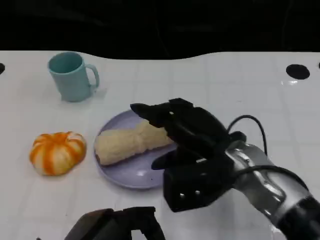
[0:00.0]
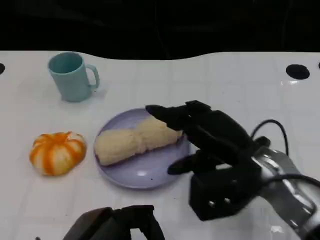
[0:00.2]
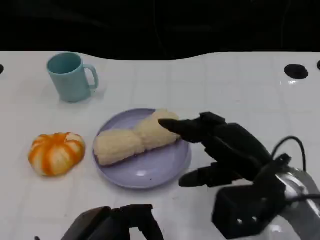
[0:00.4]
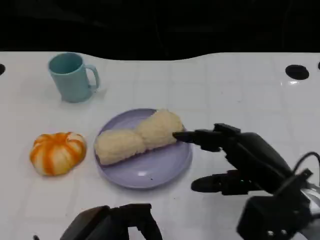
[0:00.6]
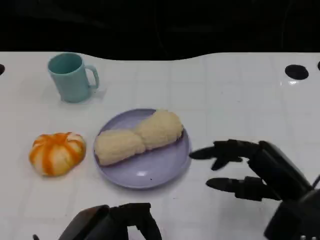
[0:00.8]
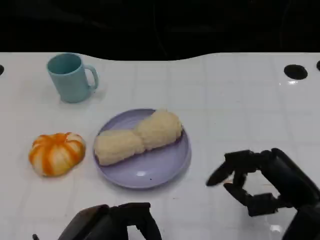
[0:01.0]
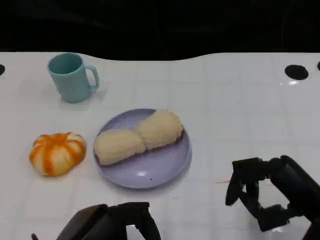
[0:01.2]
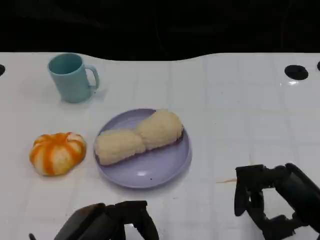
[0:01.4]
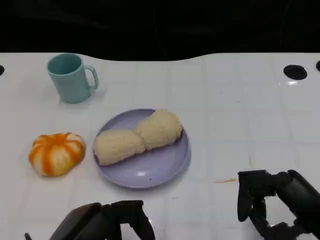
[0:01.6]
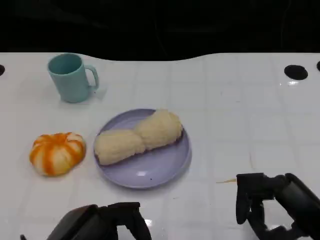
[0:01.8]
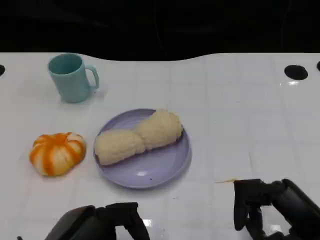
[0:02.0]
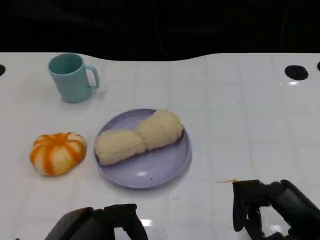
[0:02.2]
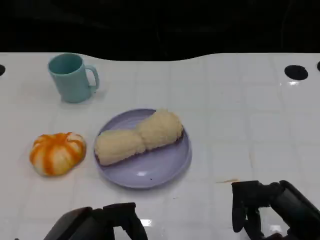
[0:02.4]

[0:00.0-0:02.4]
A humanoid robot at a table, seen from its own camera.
Task of the whole recording: Grasp the towel on the left side of the plate with the left hand and place it into the plate.
0:00.0 to 0:01.2: The right hand travels to the right and backward by about 15 cm.
0:01.2 to 0:02.4: The hands stay close to where they were, moving slightly.

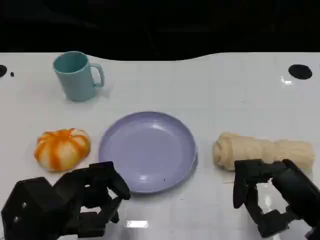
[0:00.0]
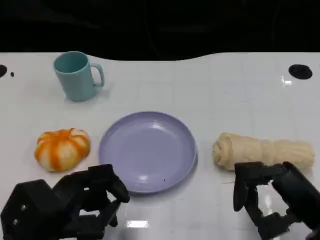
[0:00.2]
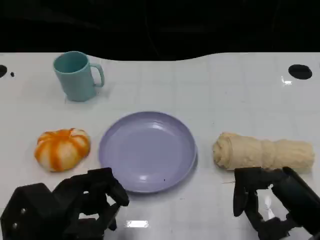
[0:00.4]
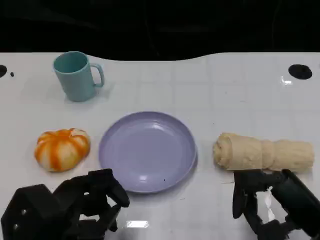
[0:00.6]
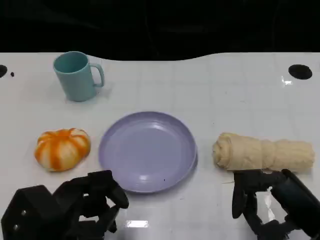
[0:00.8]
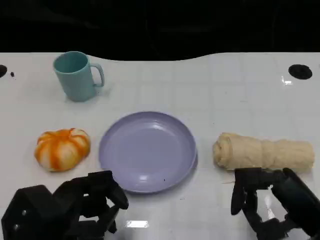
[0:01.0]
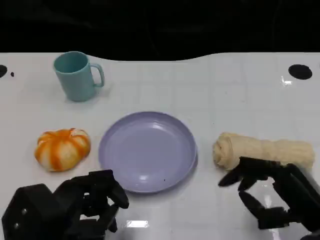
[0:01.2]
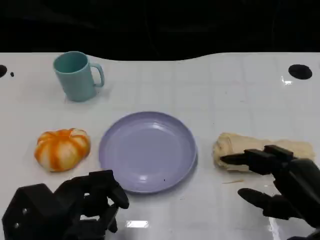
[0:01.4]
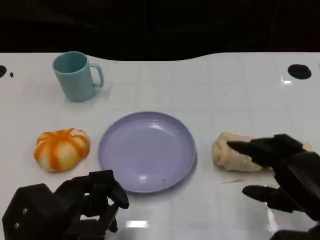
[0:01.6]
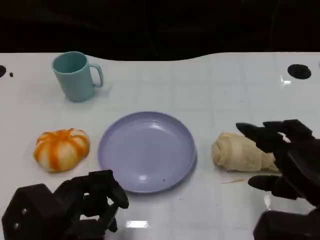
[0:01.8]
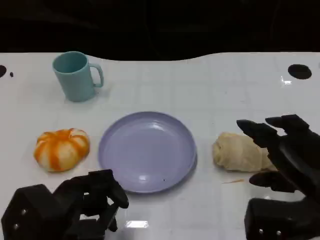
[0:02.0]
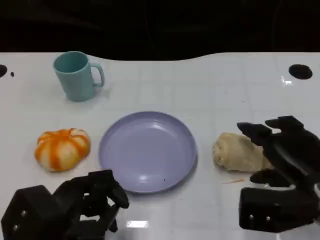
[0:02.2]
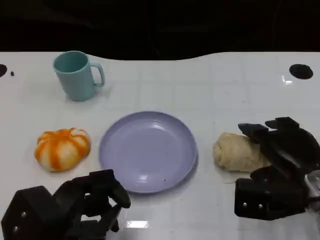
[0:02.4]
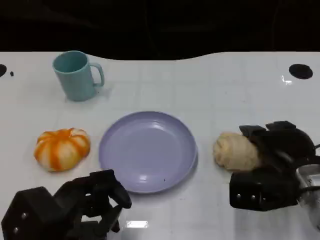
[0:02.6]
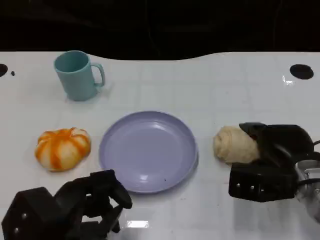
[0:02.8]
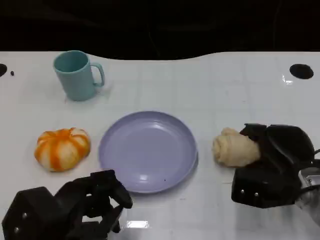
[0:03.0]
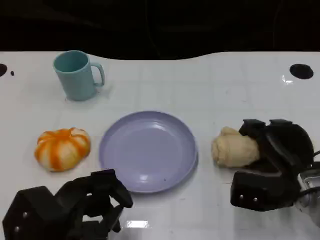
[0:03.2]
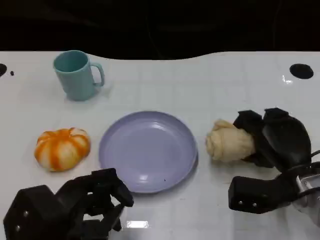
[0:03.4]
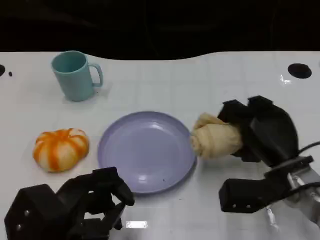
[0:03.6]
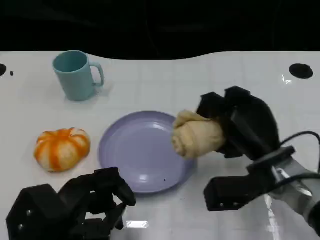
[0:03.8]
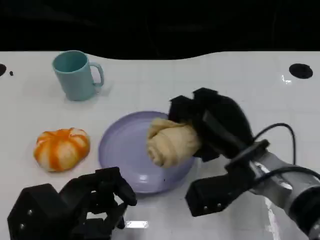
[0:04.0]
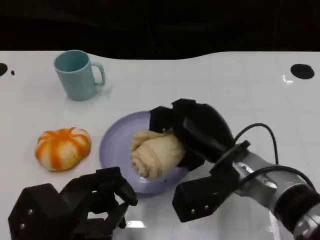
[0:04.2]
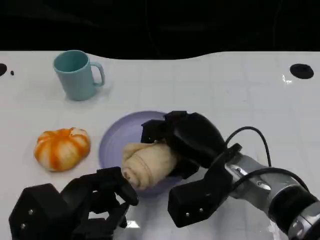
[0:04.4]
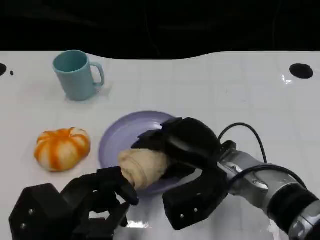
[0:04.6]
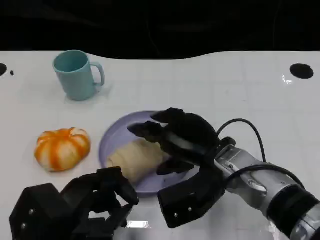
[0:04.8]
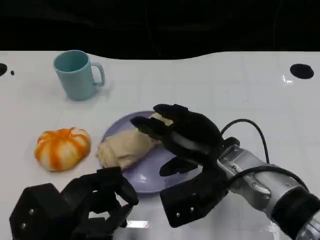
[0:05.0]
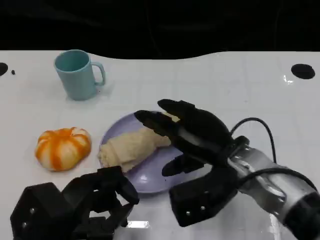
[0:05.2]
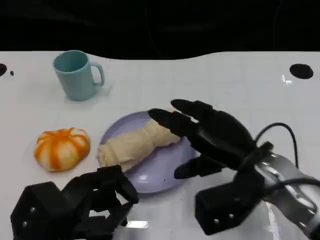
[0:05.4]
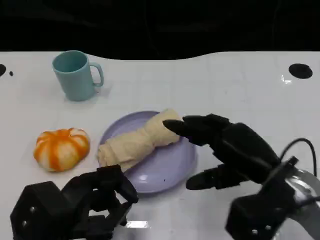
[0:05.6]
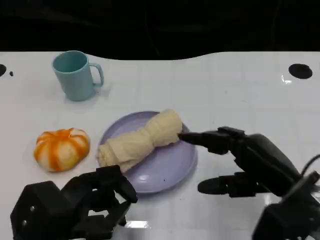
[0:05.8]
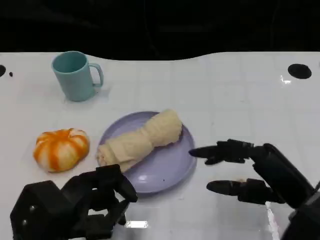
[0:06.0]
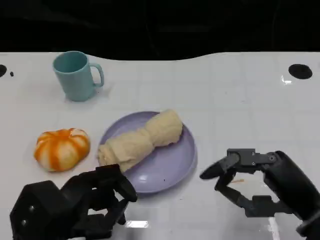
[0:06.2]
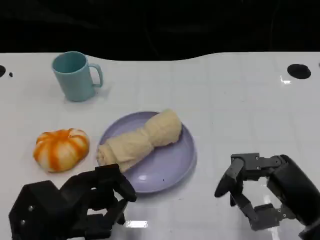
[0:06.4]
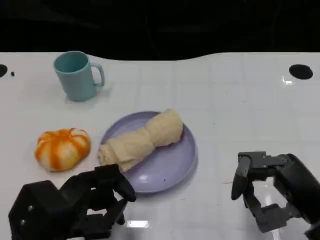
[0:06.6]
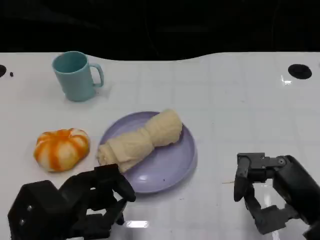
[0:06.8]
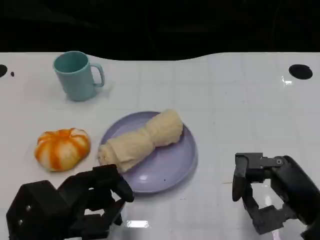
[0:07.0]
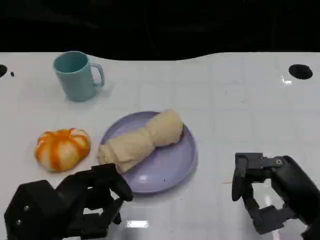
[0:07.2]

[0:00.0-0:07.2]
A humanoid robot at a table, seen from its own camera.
Task of the whole recording: Grasp the towel on the left side of the plate with the left hand and place it into the plate.
0:01.4 to 0:02.8: The right hand is displaced forward by approximately 10 cm.
0:02.8 to 0:04.4: The right hand is displaced to the left by some 10 cm.
0:04.4 to 0:05.8: The right hand moves to the right and backward, approximately 10 cm.

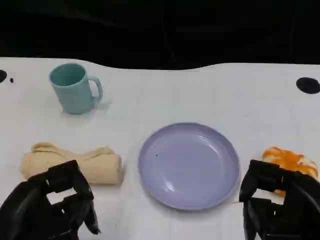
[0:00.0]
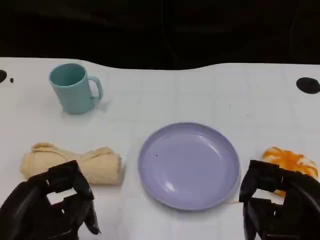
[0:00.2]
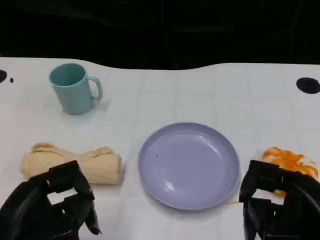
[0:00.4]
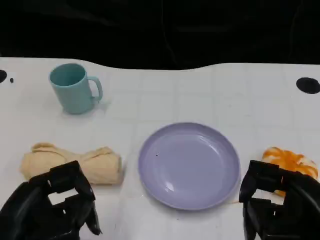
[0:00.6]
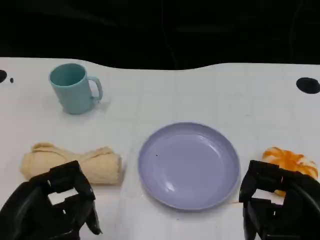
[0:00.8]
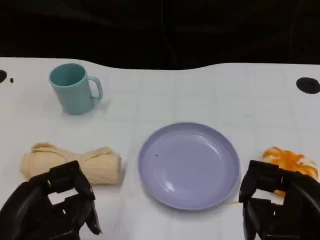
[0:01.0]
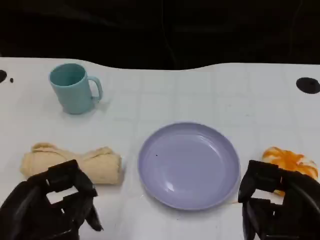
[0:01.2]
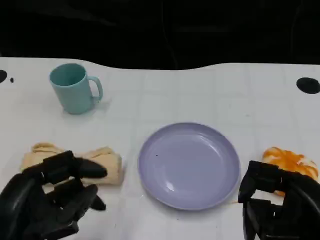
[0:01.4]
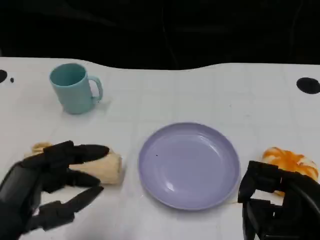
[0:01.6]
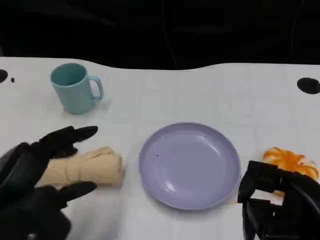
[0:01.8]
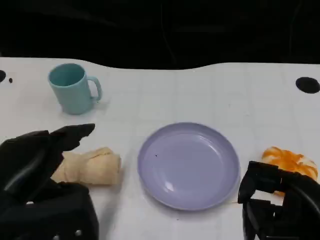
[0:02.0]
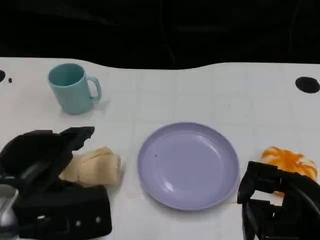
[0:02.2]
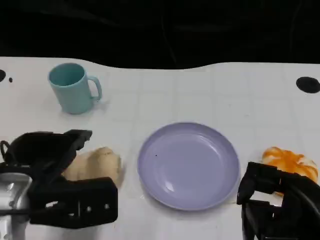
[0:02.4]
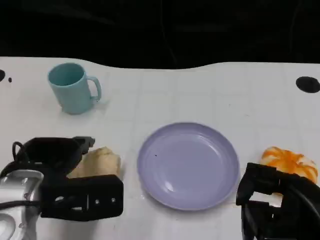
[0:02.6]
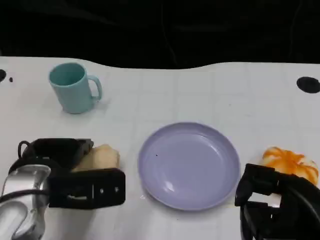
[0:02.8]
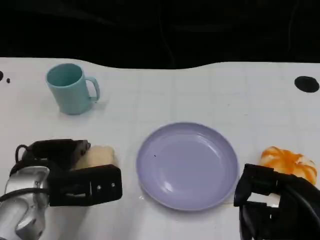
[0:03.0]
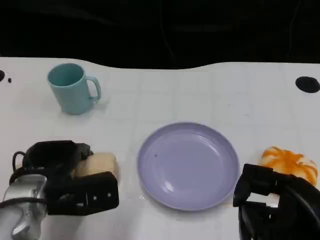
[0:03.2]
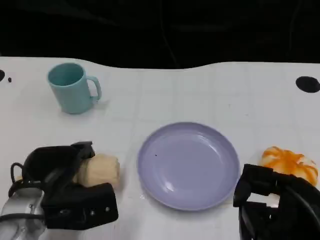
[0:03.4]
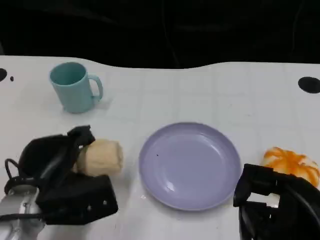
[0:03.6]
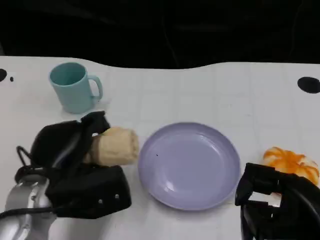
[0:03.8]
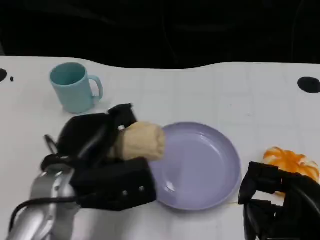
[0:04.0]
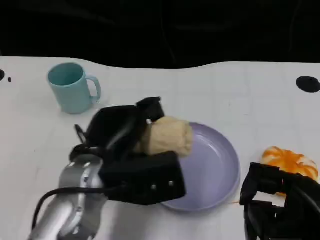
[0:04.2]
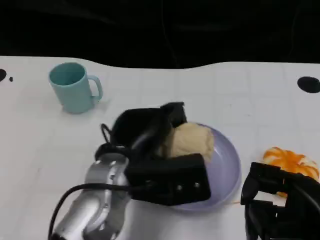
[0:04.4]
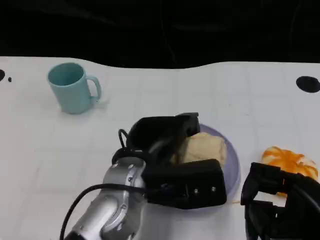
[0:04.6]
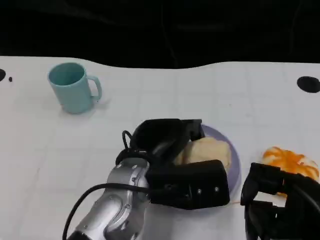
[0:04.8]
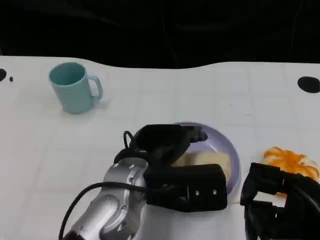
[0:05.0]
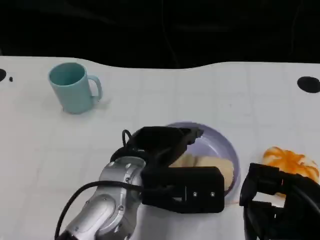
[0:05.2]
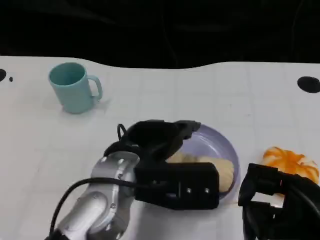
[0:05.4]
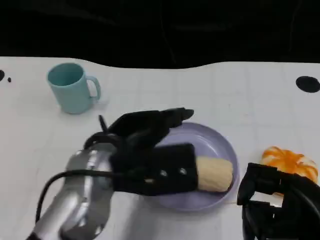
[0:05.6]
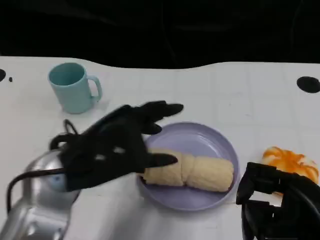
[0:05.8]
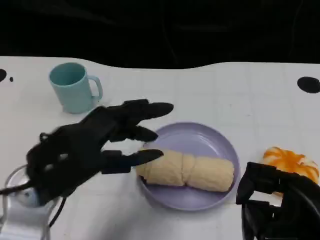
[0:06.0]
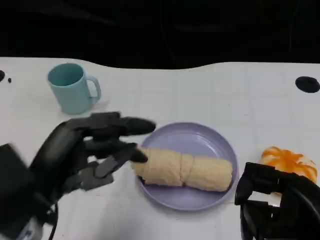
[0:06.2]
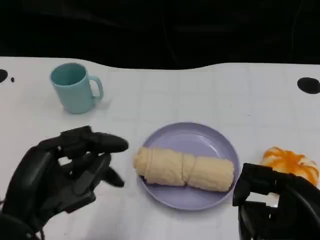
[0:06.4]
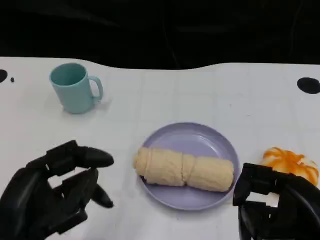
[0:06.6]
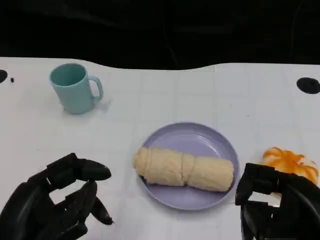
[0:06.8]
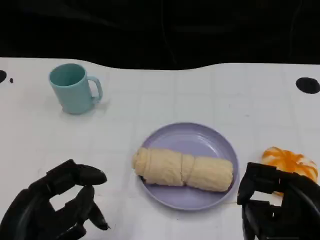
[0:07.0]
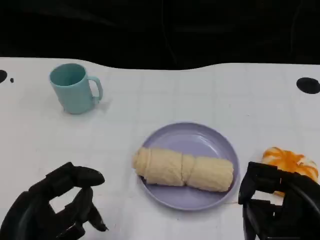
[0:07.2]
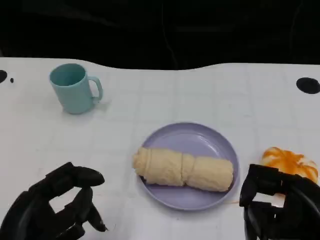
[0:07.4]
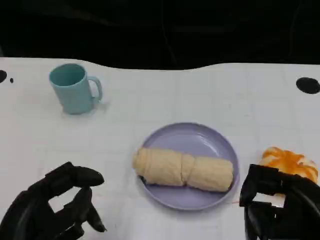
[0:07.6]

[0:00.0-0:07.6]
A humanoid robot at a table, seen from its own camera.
Task of the whole recording: Grasp the towel on the left side of the plate with the left hand and place it into the plate.
0:01.6 to 0:03.0: The left hand heads forward and downward, covering about 15 cm.
0:03.0 to 0:04.6: The left hand heads to the right, covering some 15 cm.
0:04.6 to 0:06.0: The left hand travels to the left by roughly 10 cm.
0:06.0 to 0:07.6: The left hand travels backward by some 10 cm.
